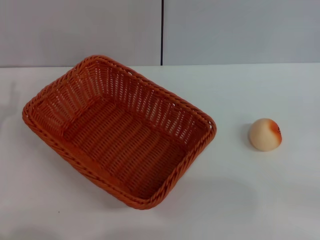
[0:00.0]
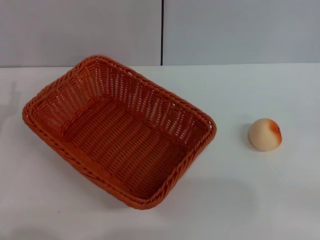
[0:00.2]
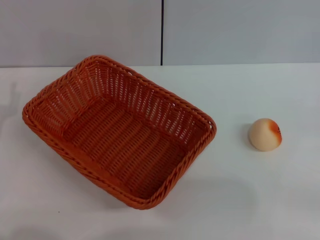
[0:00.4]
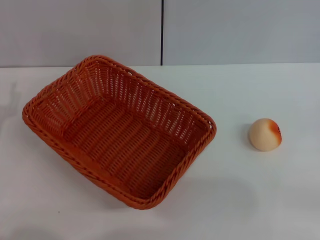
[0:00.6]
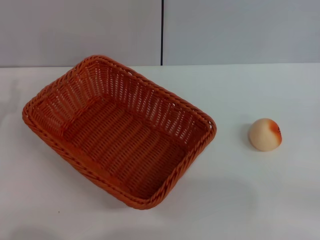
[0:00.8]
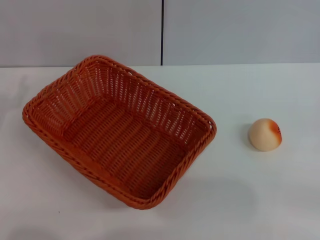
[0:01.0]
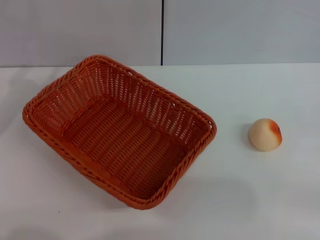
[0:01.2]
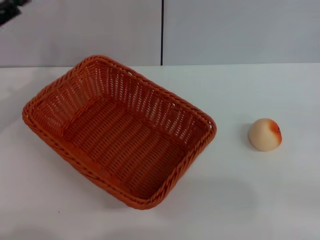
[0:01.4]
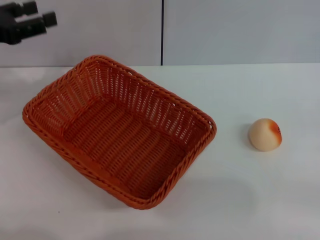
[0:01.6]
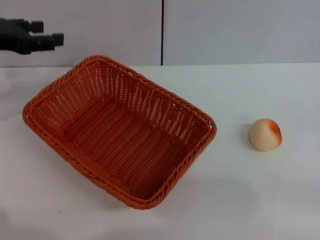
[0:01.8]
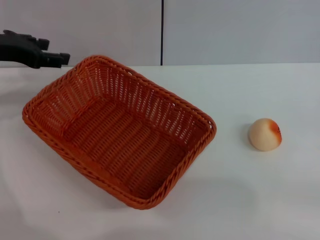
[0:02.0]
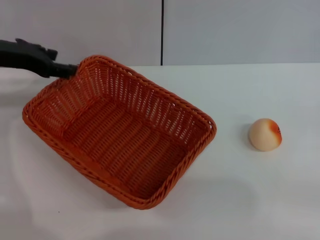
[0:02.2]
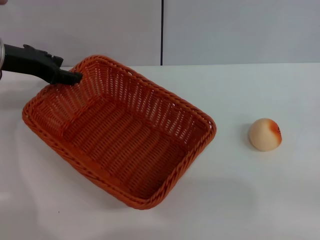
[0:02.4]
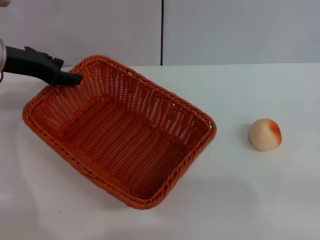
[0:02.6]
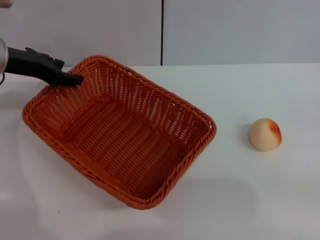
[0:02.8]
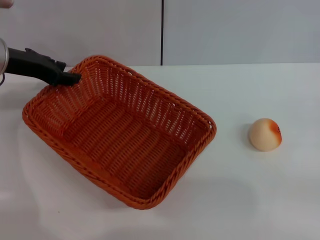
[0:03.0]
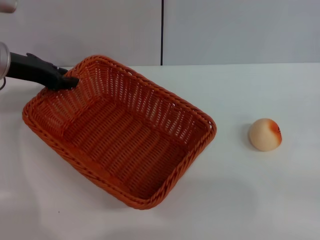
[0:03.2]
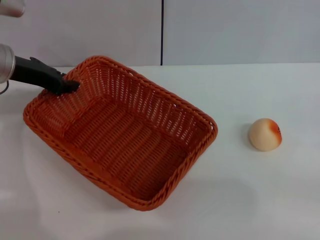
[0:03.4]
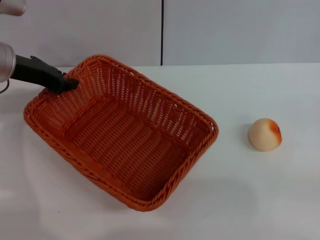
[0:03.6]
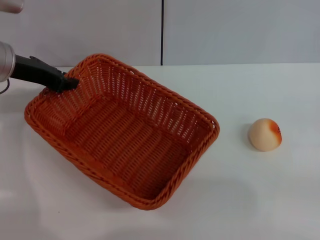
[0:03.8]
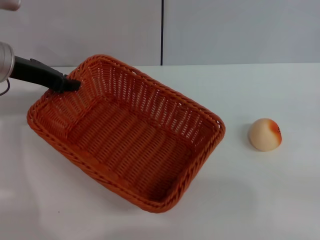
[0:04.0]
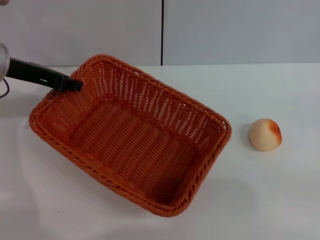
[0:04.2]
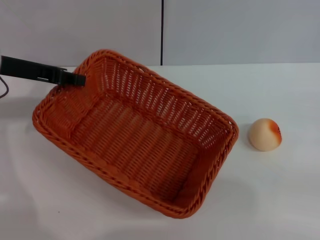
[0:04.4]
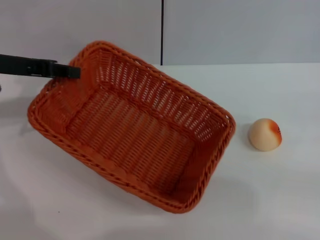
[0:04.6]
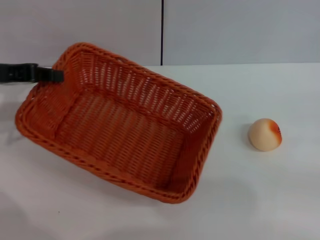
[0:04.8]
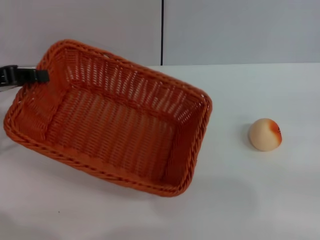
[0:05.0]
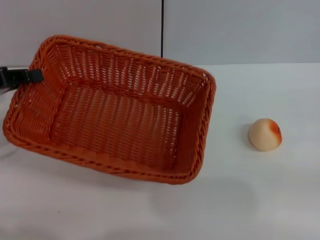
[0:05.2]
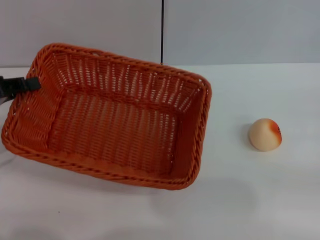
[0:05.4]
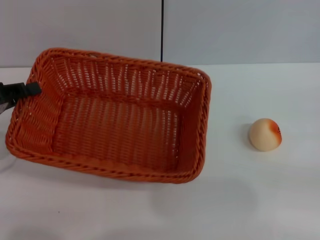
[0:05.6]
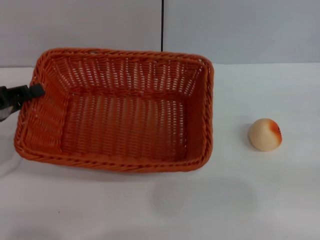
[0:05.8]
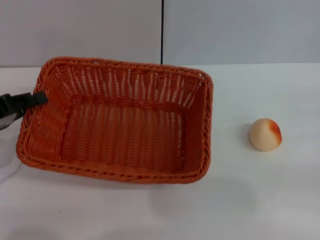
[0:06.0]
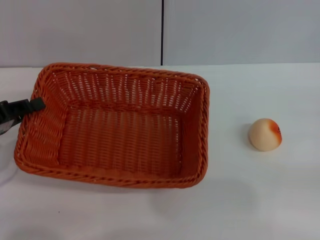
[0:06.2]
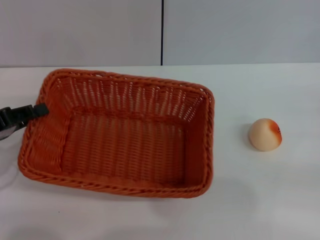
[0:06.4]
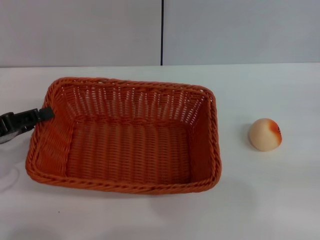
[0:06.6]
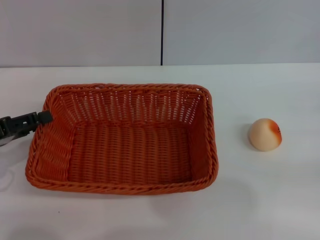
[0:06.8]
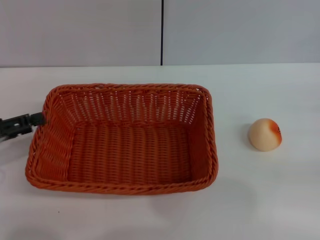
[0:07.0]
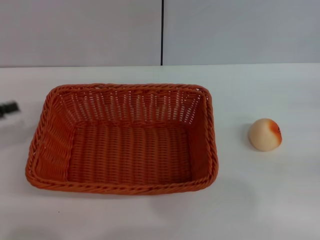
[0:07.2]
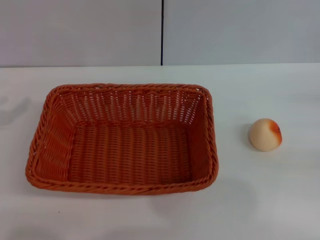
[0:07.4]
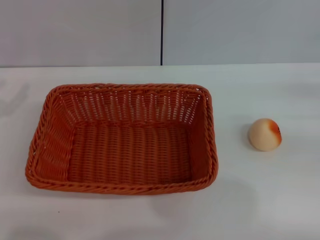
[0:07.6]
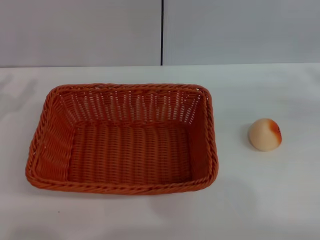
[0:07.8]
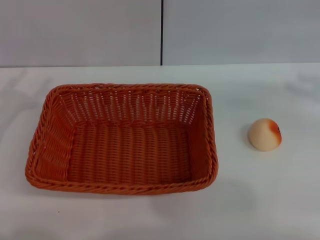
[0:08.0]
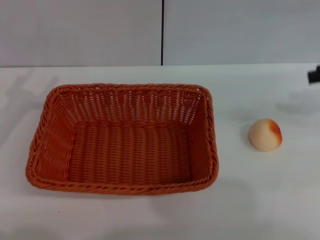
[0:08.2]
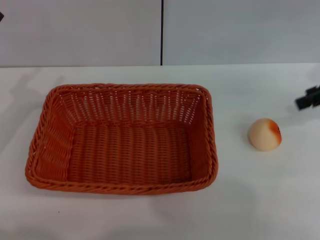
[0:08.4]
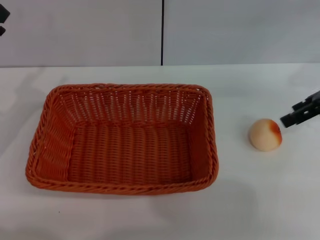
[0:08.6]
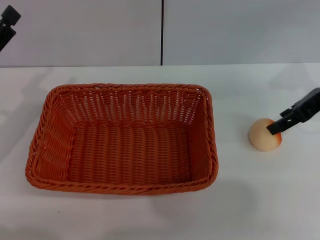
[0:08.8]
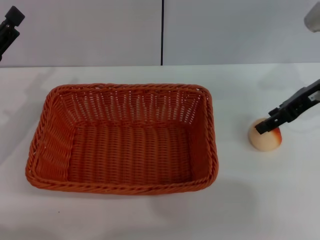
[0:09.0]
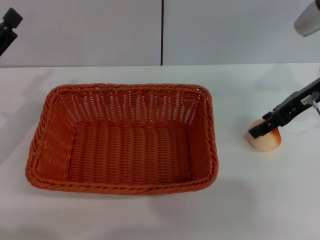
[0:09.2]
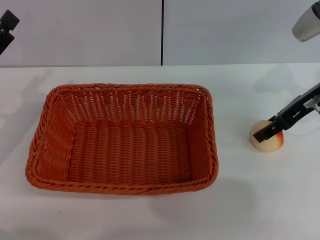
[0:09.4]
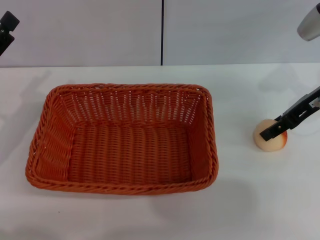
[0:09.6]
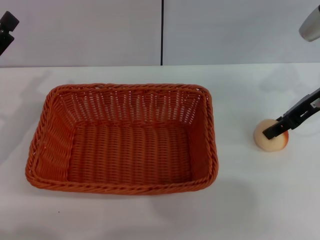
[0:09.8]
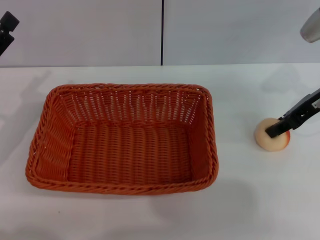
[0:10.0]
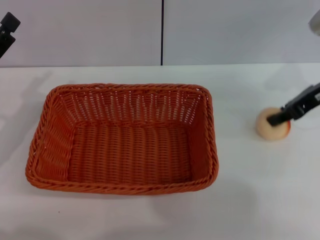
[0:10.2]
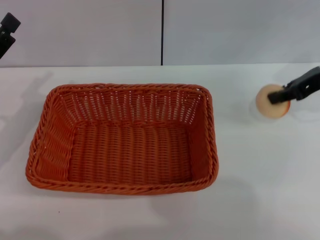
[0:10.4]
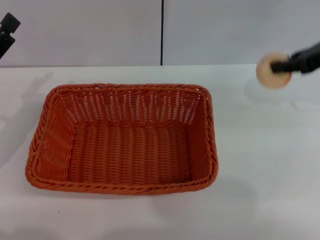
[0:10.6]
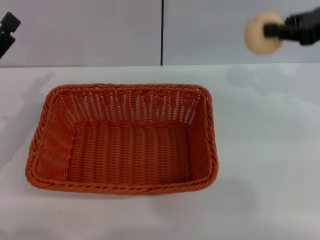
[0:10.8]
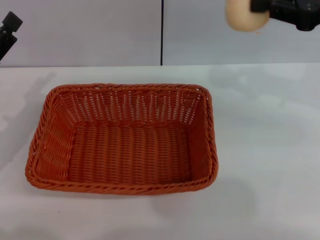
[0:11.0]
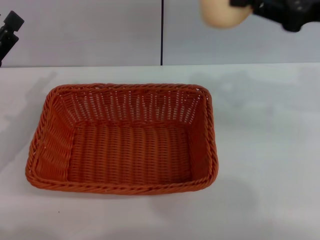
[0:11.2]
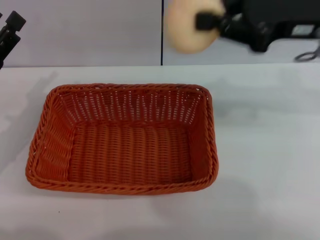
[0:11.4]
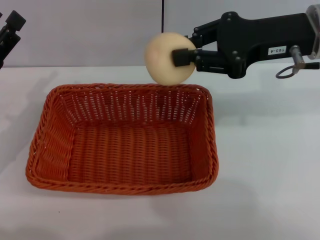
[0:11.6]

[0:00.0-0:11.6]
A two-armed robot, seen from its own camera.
Step, 0:00.0 to 0:07.0: Move the basket to the center of view with the left gripper.
Step, 0:07.2 to 0:10.4: Pick up the egg yolk pastry with the right gripper.
0:01.4 to 0:02.8: The left gripper goes roughly 10 cm to the right and forward.
0:02.8 to 0:04.4: The left gripper closes.
0:04.4 to 0:05.8: The left gripper shifts roughly 15 cm backward, downward and to the left.
0:05.8 to 0:07.2: The left gripper opens up.
0:07.2 to 0:08.8: The right gripper moves to the left, forward and upward, roughly 20 cm. The left gripper shifts approximately 5 cm to the right.
0:08.8 to 0:10.2: The right gripper closes its fingers.
0:10.2 to 0:11.6: The right gripper moves to the left and upward, roughly 10 cm, and closes.

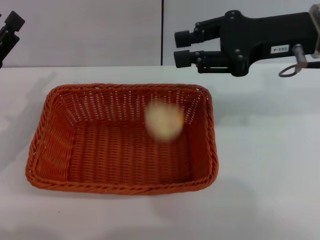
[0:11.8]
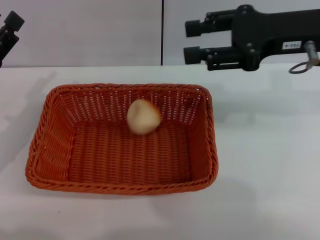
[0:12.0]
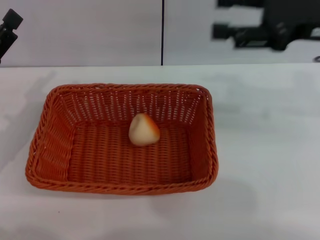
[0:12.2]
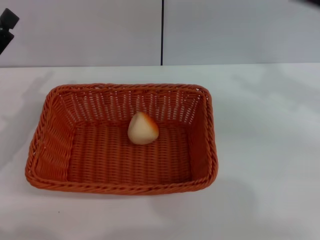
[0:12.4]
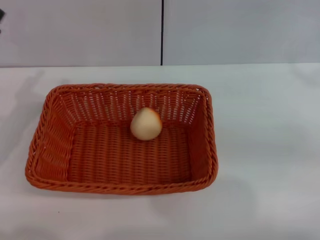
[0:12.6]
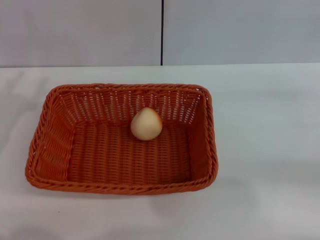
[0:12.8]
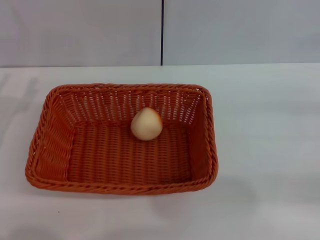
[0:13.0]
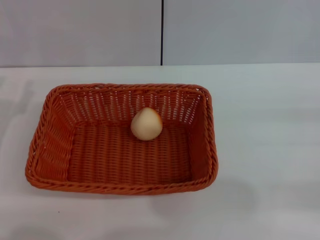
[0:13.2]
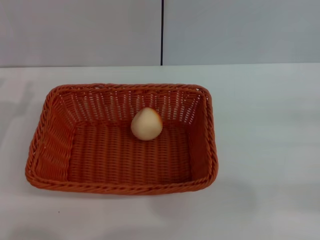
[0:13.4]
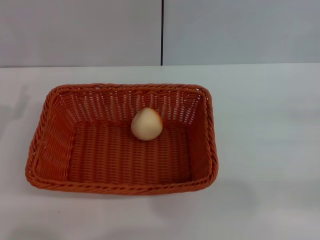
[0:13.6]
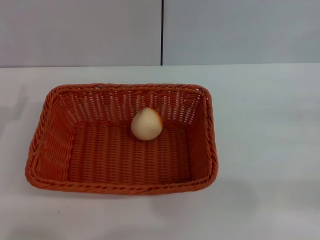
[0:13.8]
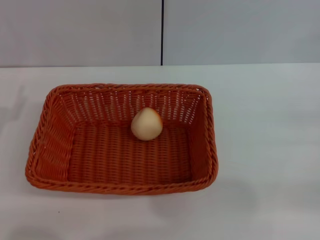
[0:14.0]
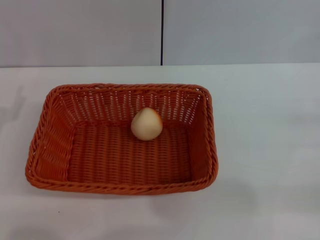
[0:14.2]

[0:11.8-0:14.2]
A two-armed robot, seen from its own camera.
0:11.8 to 0:13.0: The right gripper moves to the right, downward and backward, about 25 cm, and opens up.

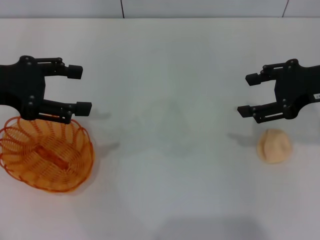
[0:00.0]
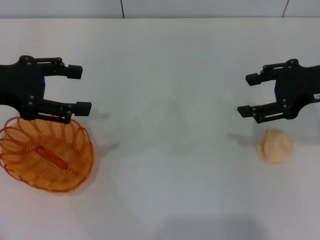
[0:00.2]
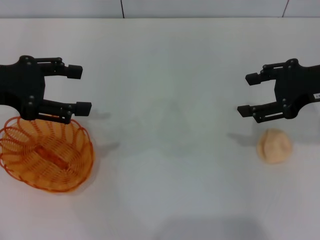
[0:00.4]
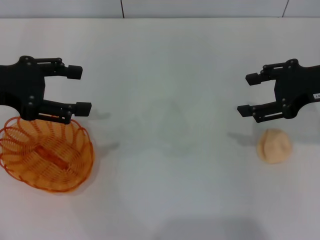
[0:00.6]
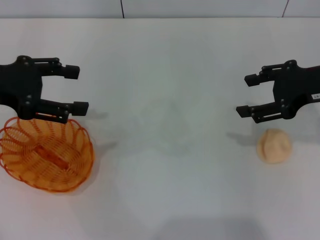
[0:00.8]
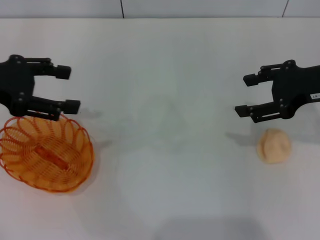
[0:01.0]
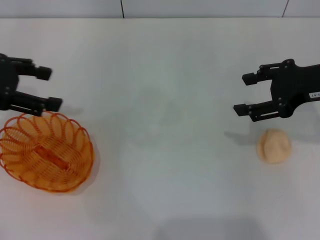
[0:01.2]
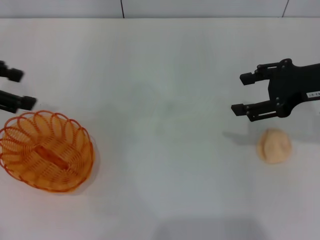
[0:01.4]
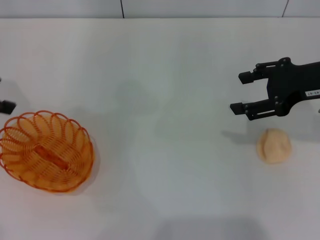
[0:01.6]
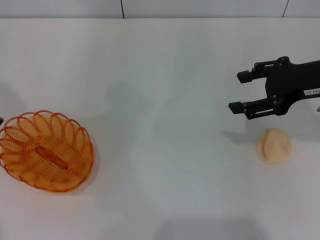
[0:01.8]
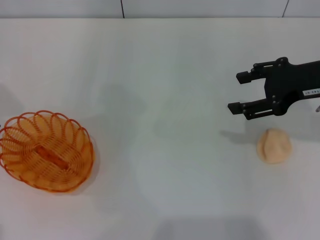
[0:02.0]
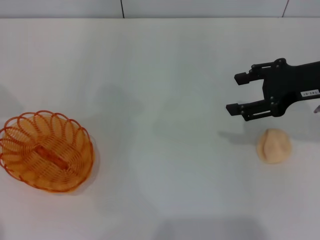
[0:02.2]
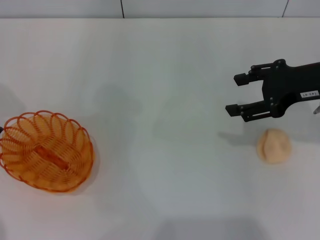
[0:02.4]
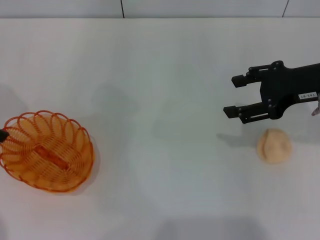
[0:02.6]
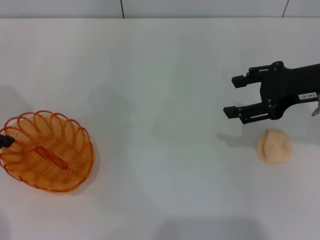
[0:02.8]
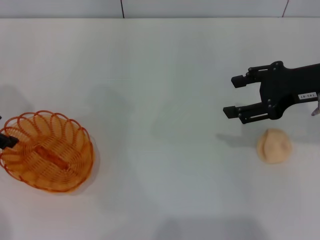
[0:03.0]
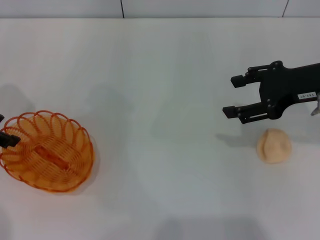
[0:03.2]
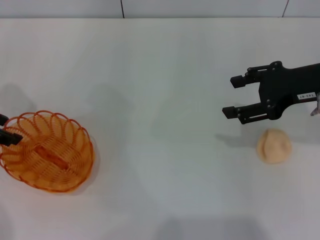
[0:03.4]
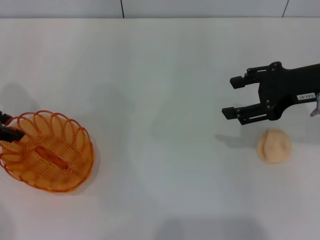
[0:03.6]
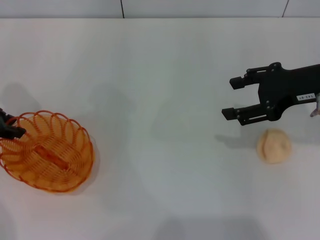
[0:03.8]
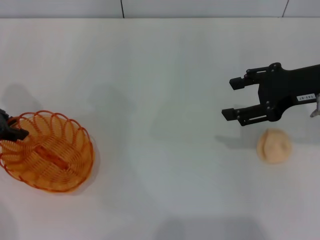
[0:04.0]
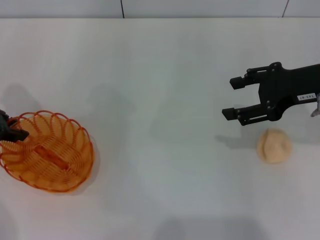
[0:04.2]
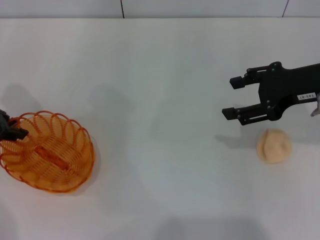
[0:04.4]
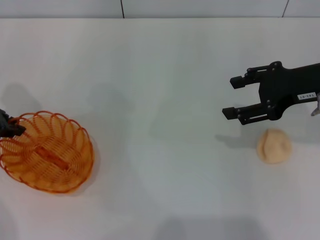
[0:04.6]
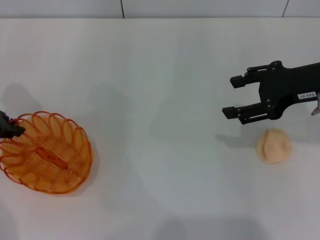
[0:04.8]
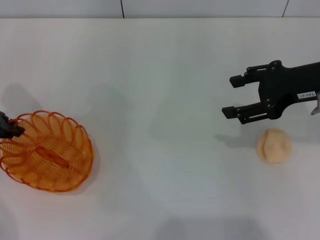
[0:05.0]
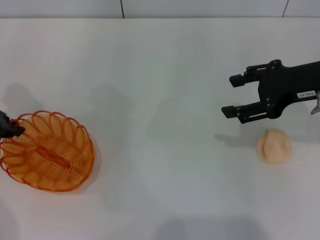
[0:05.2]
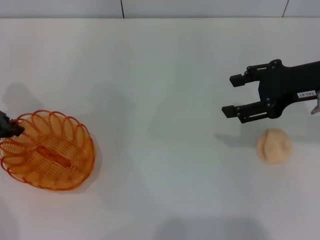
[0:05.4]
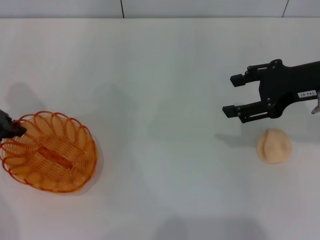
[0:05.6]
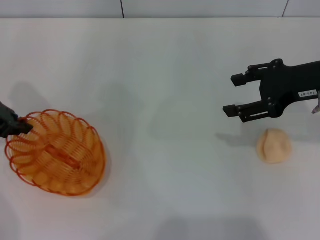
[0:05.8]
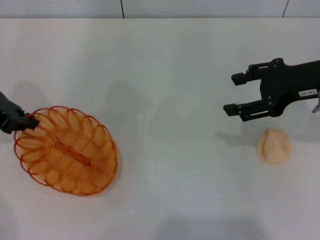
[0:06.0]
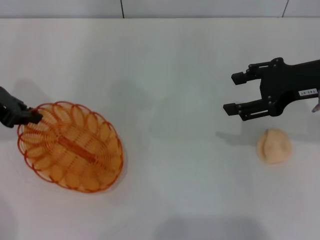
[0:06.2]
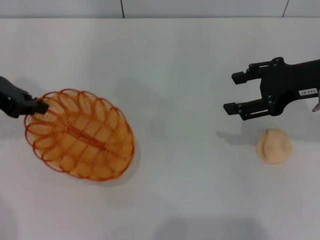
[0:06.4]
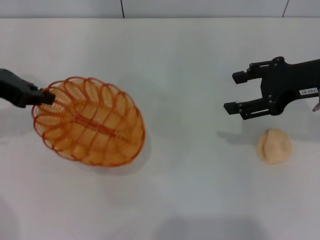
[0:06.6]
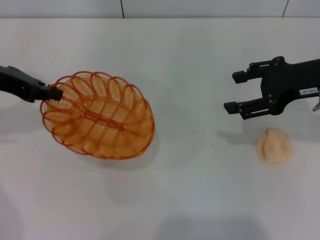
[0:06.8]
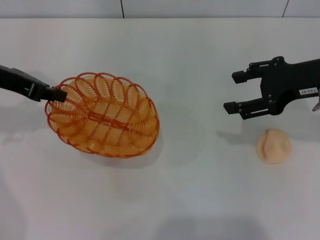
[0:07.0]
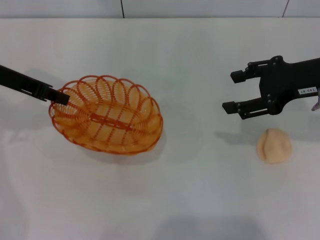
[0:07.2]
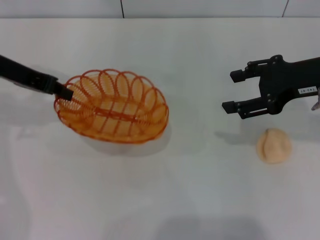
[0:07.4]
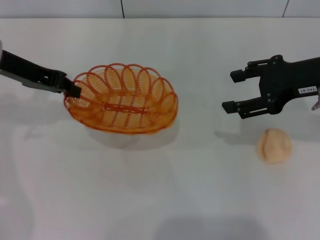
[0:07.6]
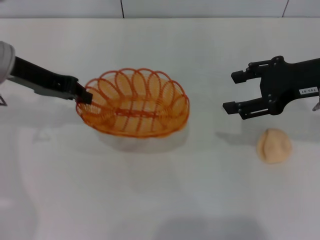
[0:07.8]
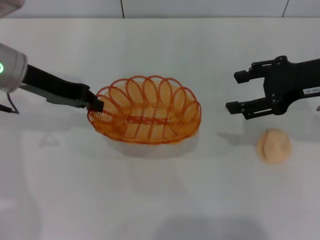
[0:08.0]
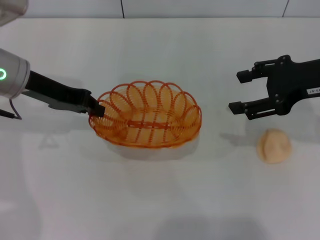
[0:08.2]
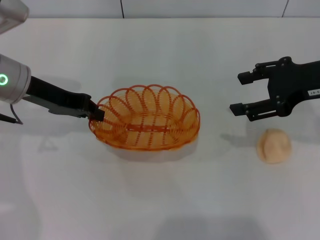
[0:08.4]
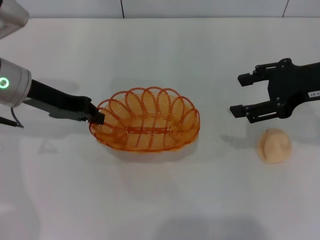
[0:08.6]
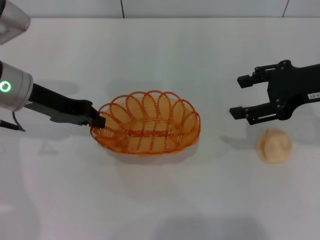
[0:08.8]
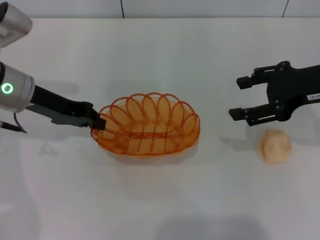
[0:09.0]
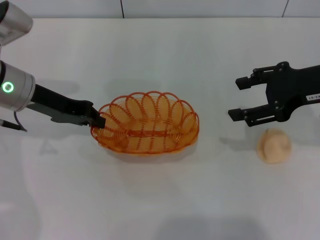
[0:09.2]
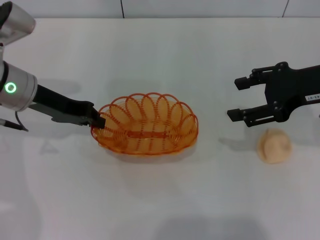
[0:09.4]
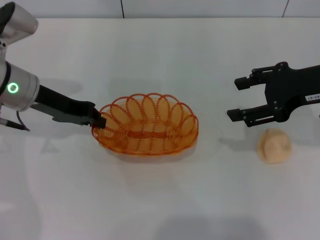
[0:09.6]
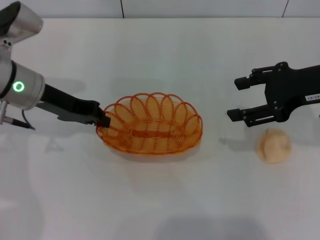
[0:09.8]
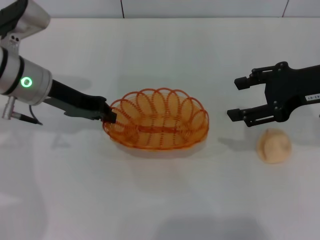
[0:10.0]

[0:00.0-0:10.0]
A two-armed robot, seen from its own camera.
Step, 0:00.0 to 0:06.2: Pick up the basket with the left gripper.
0:00.0 to 0:01.4: The left gripper ends up roughly 5 cm from where it was.
0:01.4 to 0:02.8: The left gripper travels downward by approximately 5 cm.
0:02.8 to 0:04.2: The left gripper closes its fingers.
0:04.2 to 0:05.8: The left gripper closes up.
0:05.8 to 0:07.2: The left gripper shifts by about 5 cm.
0:07.2 to 0:08.6: The left gripper moves approximately 5 cm.
0:08.6 to 0:10.0: The grippers move only a little.
